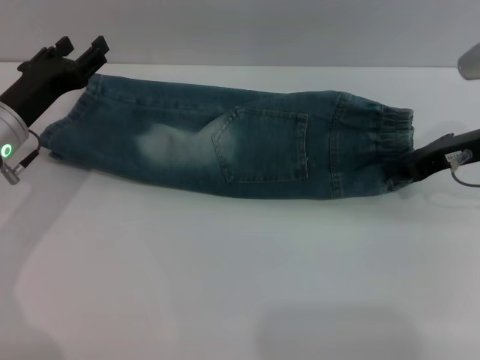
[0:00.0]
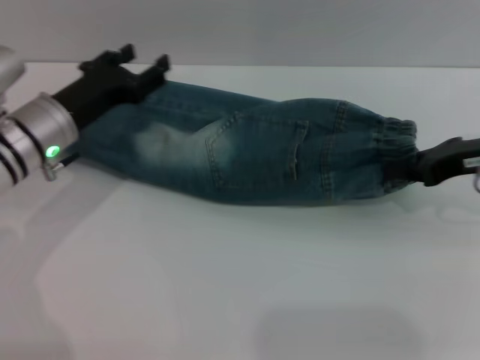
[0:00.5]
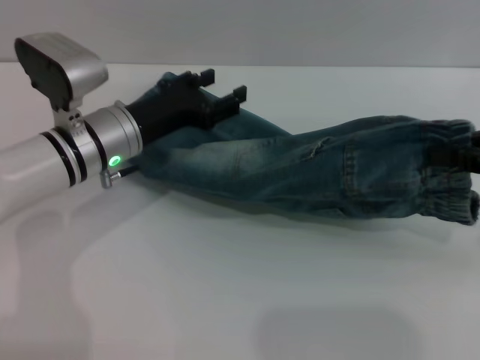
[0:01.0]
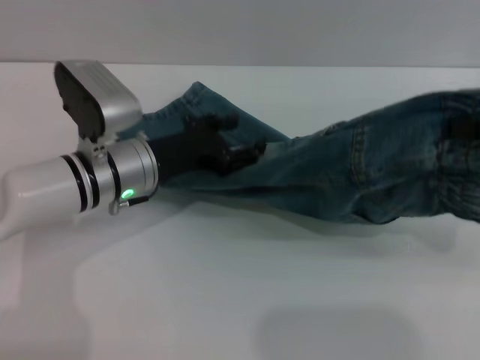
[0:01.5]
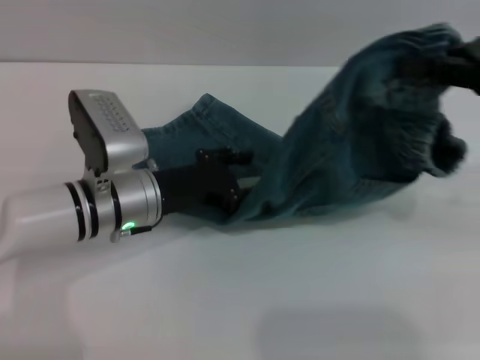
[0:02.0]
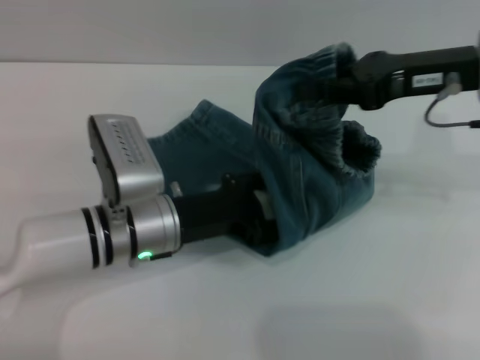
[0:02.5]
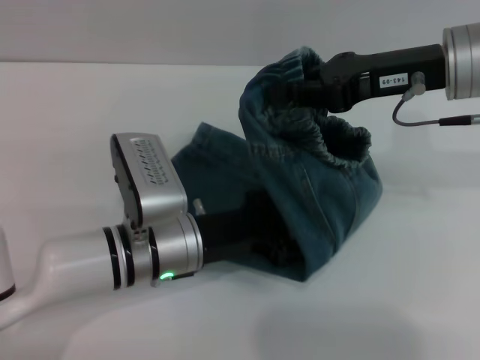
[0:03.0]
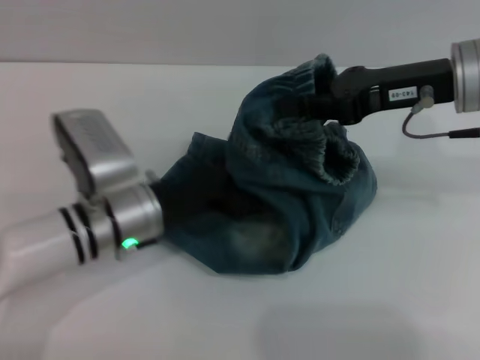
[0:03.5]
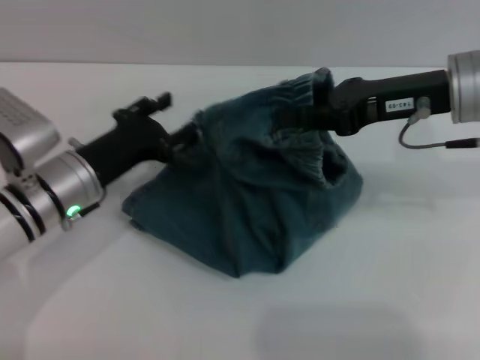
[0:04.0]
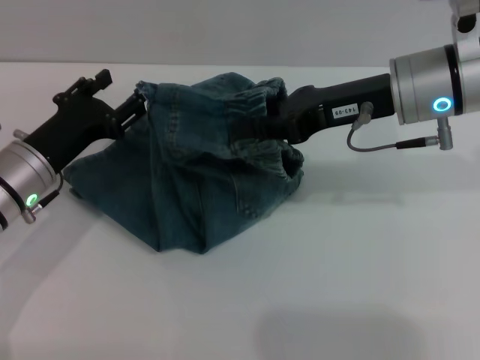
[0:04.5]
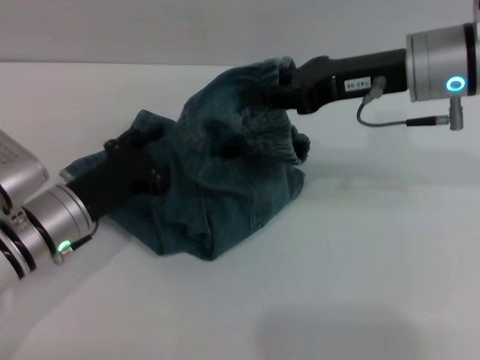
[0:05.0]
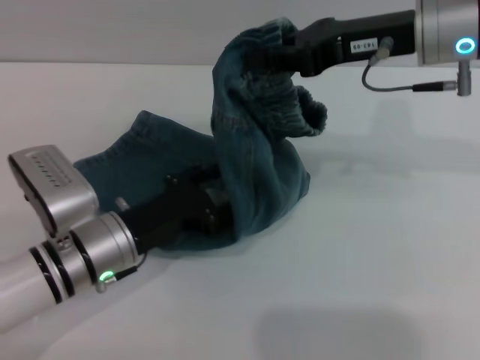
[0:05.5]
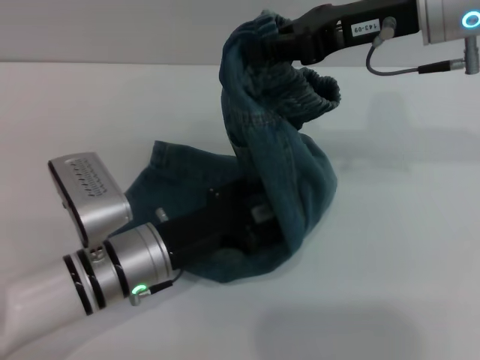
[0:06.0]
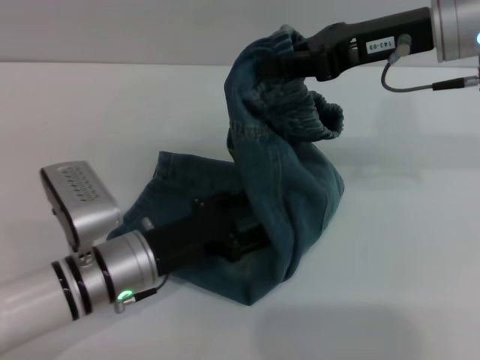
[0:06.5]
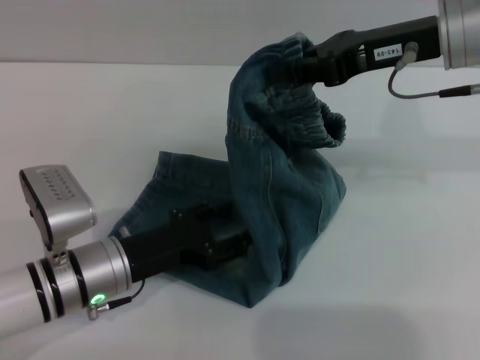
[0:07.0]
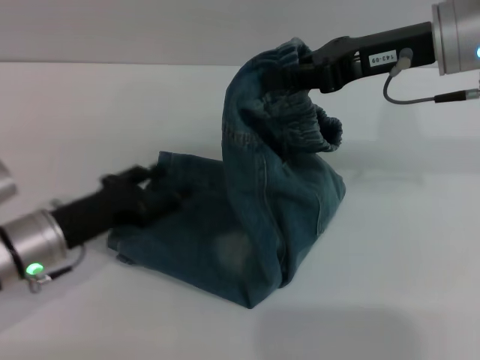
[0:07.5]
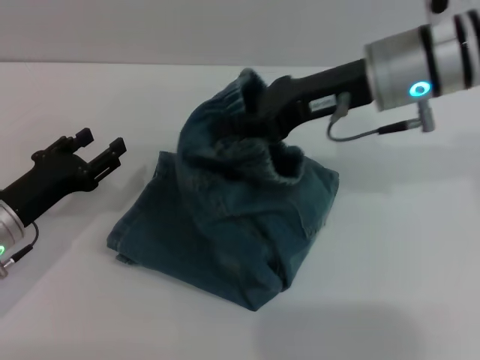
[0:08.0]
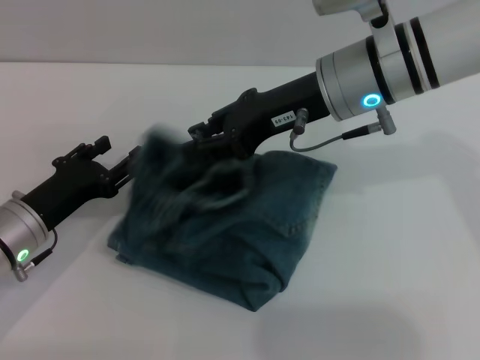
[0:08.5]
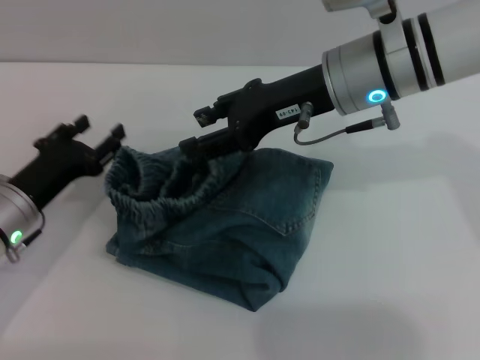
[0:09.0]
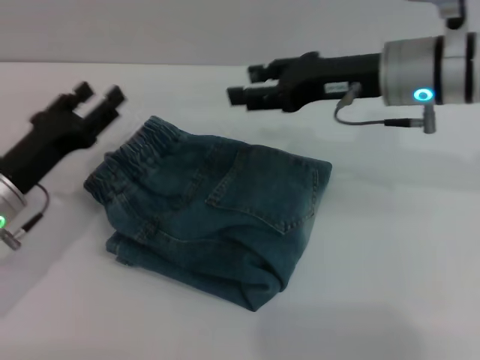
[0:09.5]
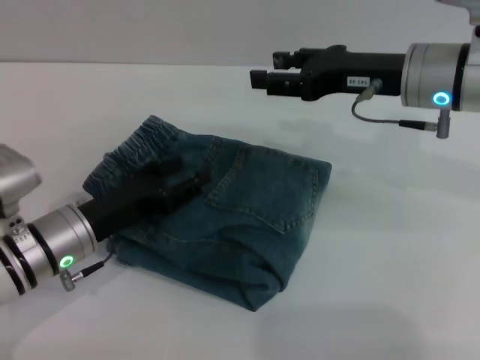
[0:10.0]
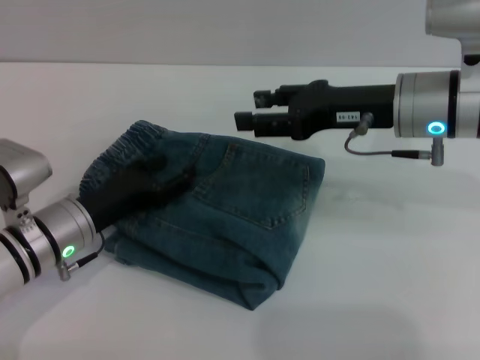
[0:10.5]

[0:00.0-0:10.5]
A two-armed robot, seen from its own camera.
Step, 0:00.0 to 0:09.5: Fold the pants from right to left with the right gripper.
0:00.0 to 0:02.0: The right gripper heads upward and backward, covering roughly 10 cm. The left gripper heads to the right, covering some 10 cm.
0:02.0 to 0:04.0: The left gripper is displaced to the left by some 5 cm. The right gripper travels to the left by approximately 10 cm.
0:04.0 to 0:06.5: The left gripper goes approximately 10 cm backward and to the right; the right gripper changes place by some 5 cm.
0:06.5 to 0:08.5: The two grippers go about 10 cm to the left.
0:08.5 to 0:10.5: The right gripper is displaced to the right by approximately 5 cm, and opens up.

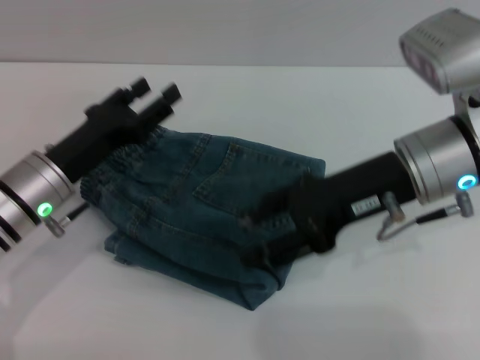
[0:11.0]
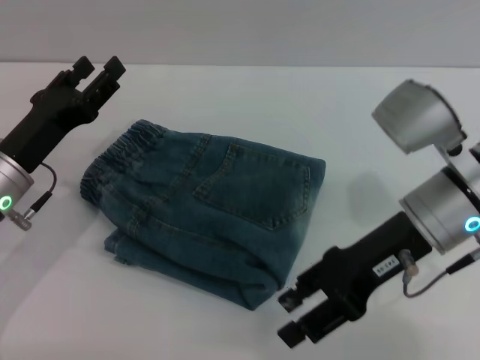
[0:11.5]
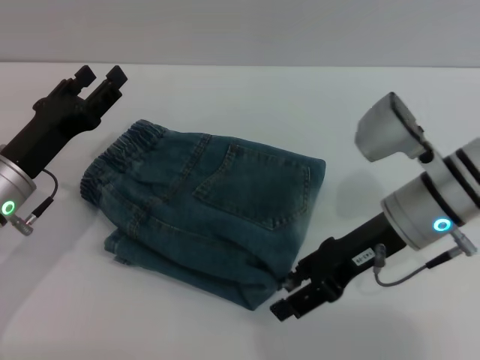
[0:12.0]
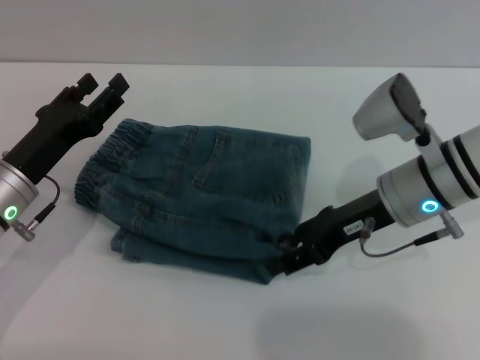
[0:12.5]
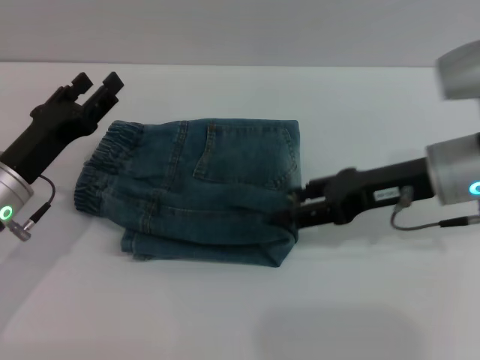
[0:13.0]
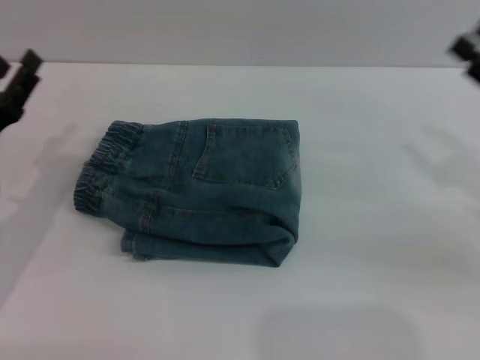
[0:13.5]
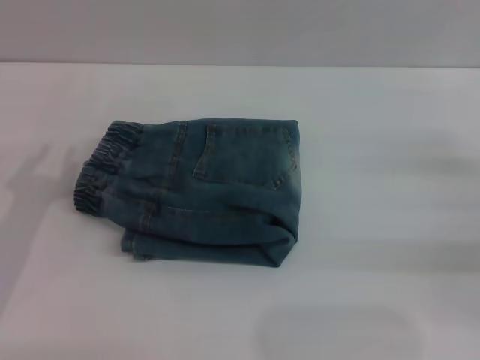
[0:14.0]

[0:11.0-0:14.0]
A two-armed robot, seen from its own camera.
Step, 0:11.0 to 0:13.0: Place the folded trousers onto the center area with the right grippers.
0:11.0 to 0:12.5: The right gripper travels downward by approximately 5 cm.
0:12.5 to 0:14.0: The right gripper travels to the right by roughly 20 cm. The left gripper shifts about 5 cm backward.
